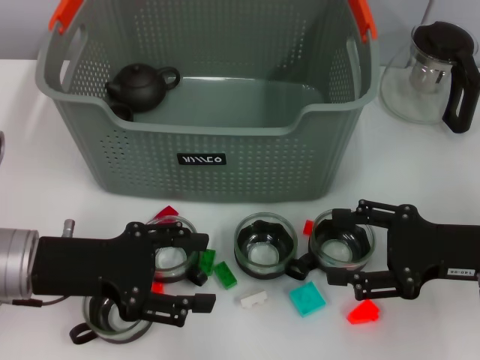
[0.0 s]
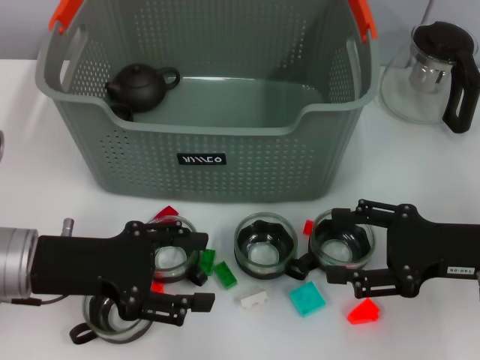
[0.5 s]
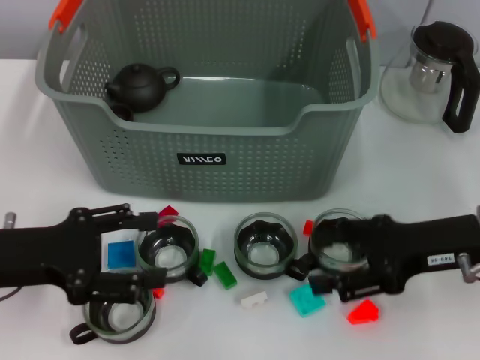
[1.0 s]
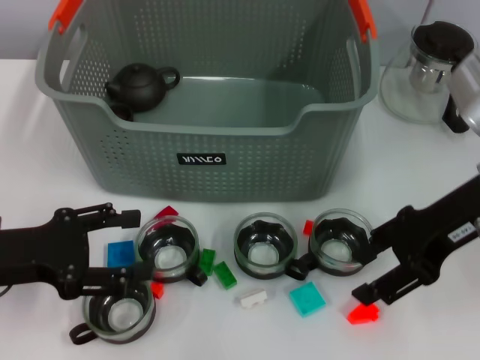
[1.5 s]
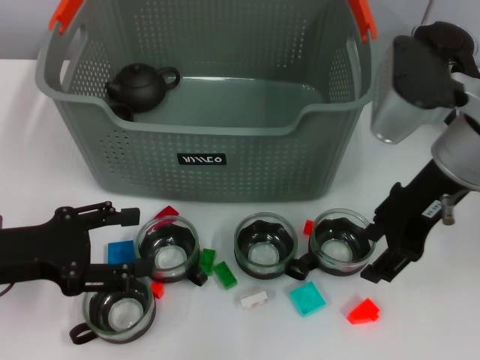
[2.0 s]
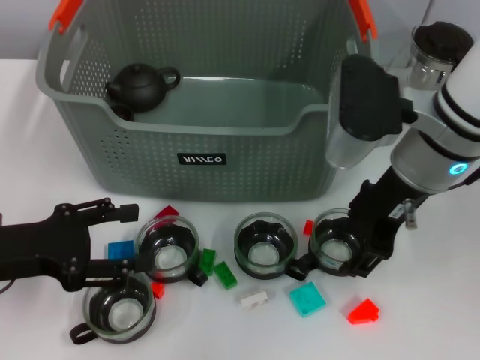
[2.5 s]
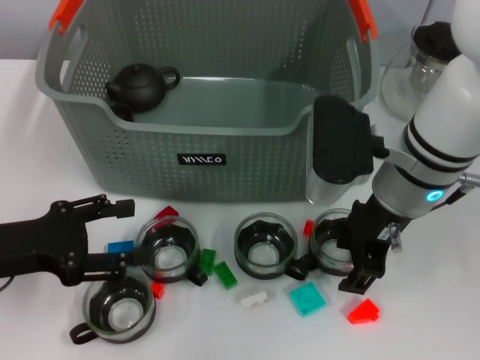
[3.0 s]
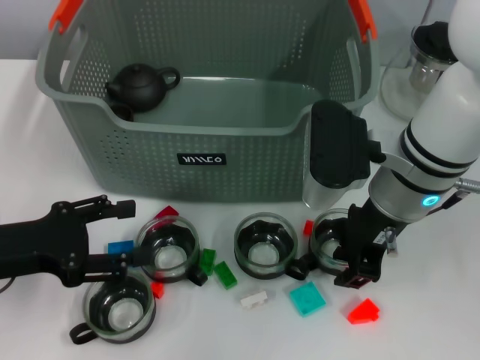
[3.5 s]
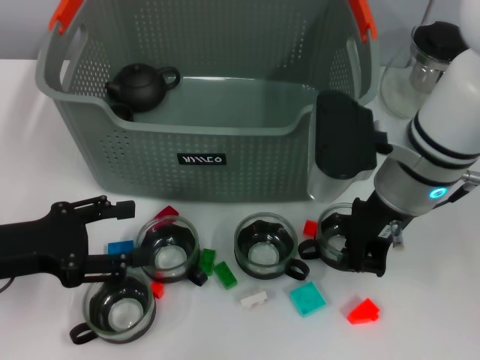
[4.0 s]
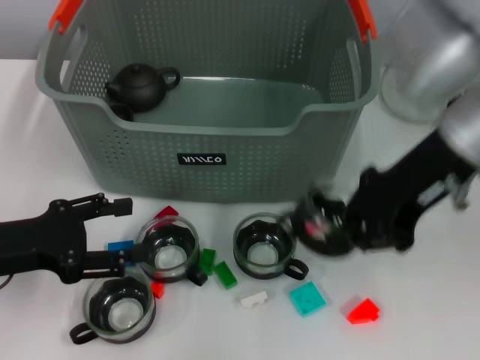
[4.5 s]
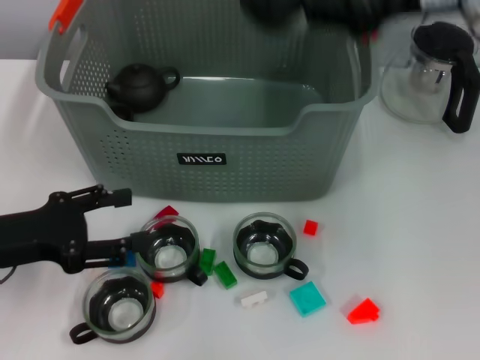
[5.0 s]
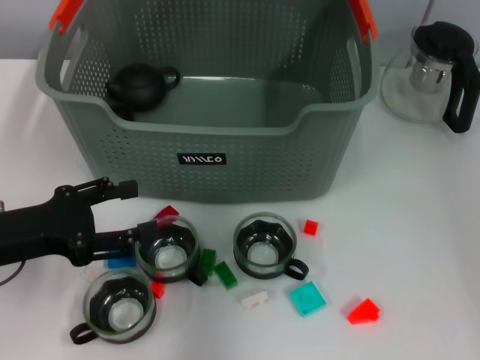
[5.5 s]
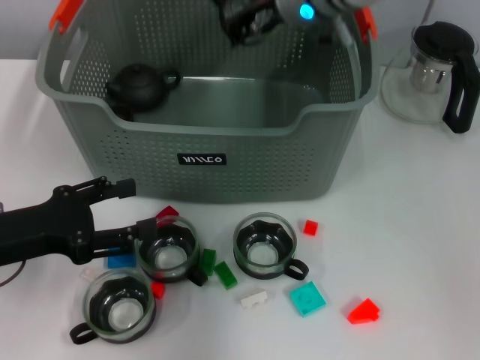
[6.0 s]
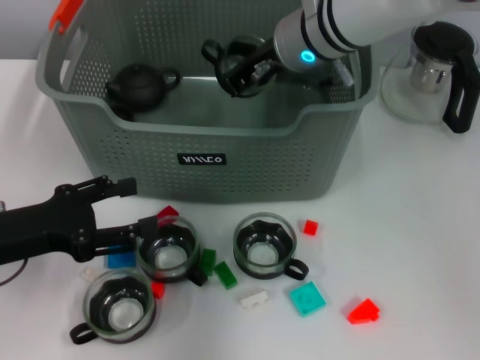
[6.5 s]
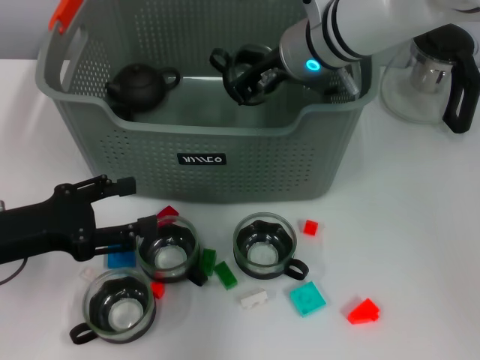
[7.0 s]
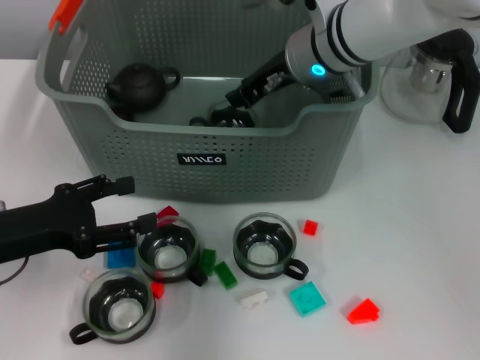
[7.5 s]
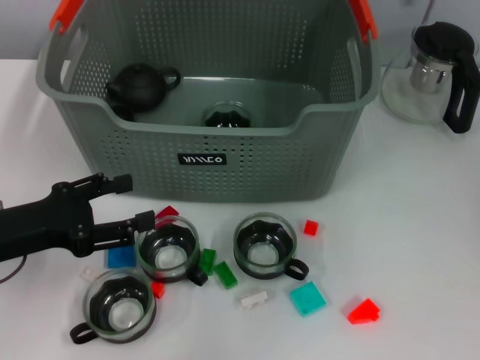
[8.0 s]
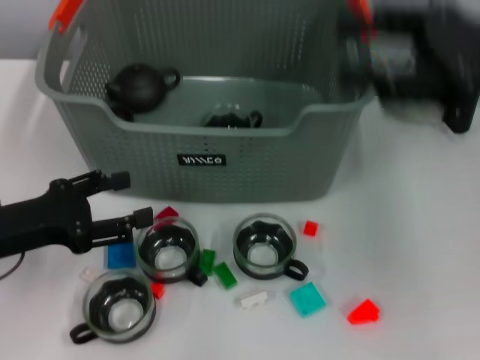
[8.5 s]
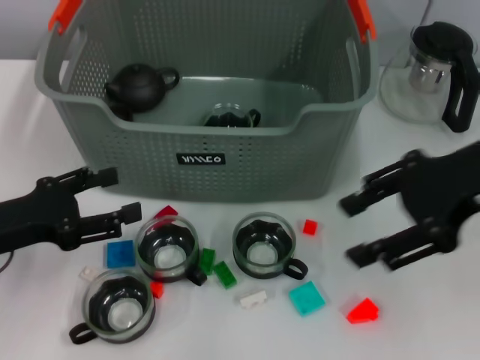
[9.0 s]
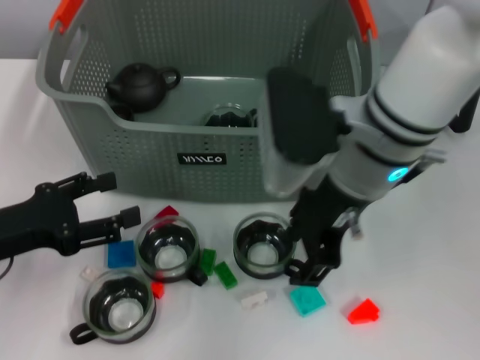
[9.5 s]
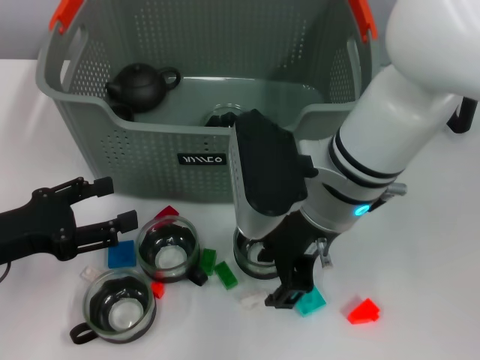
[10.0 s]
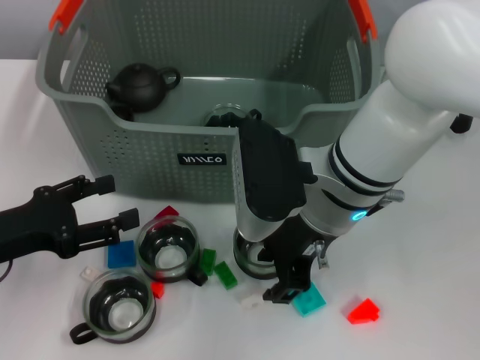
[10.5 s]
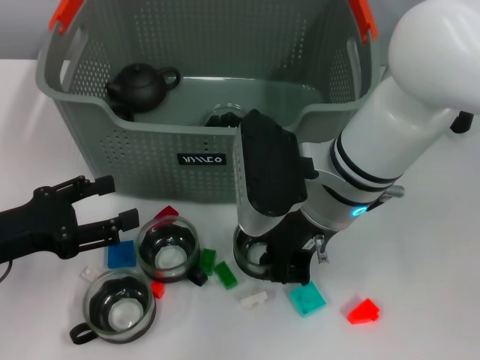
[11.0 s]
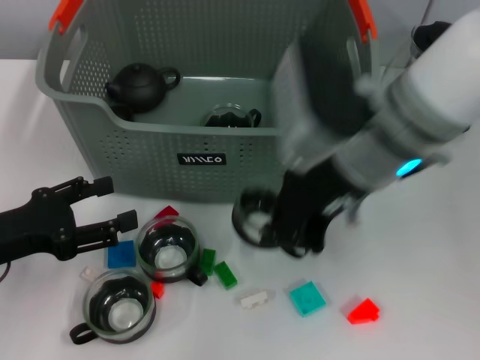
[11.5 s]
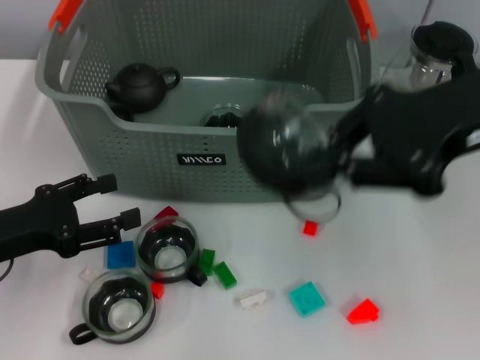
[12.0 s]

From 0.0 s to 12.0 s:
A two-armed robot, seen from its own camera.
Task of the whole recording: pick up the teacup on the table and place it into the storage bin, pick up the block on the table and place it into the storage bin.
Step, from 0.0 s to 3.5 s: Grasp the cup with right gripper.
Step, from 4.0 s to 7.0 s: Place the cup in the storage box with right gripper.
Step, from 7.5 s to 11.0 s: Grasp the cup with right gripper.
From 0.0 s to 2.0 s: The left gripper moves to the left, roughly 5 cm. The right gripper heads upward, to the left and forward, covering approximately 15 cm.
From 2.0 s to 4.0 s: The right gripper moves approximately 5 cm, and closes up.
From 4.0 s to 6.0 s: The right gripper goes about 15 cm forward, to the left and upward.
From 6.0 s to 8.0 s: The right gripper shifts approximately 10 cm to the right and upward, and opens its fingers.
From 8.0 s to 10.0 s: The right gripper is displaced downward and backward by approximately 15 cm, and travels to the right and back again, approximately 15 cm each way.
From 10.0 s to 12.0 s: The right gripper goes some 20 cm to the right and upward, and closes up.

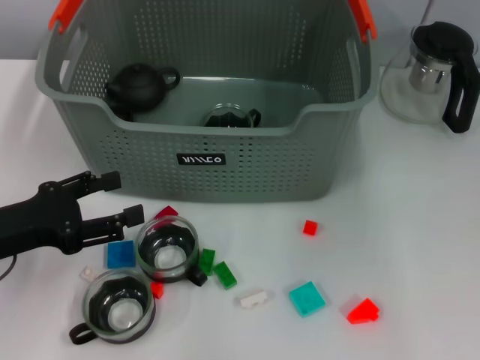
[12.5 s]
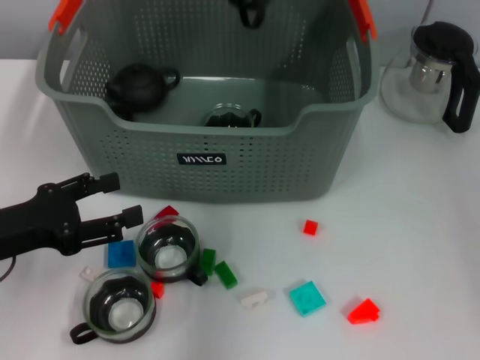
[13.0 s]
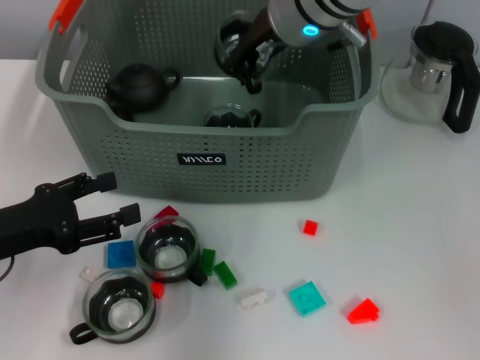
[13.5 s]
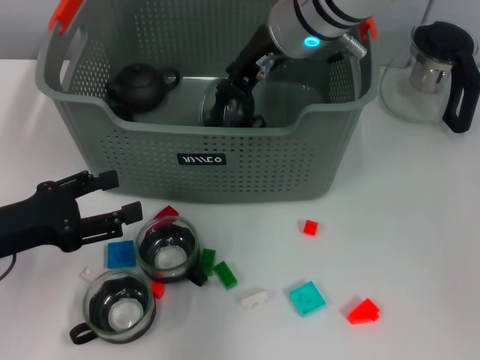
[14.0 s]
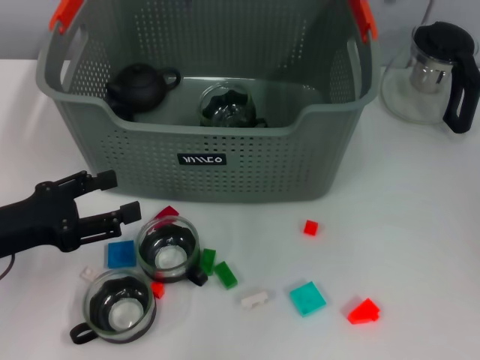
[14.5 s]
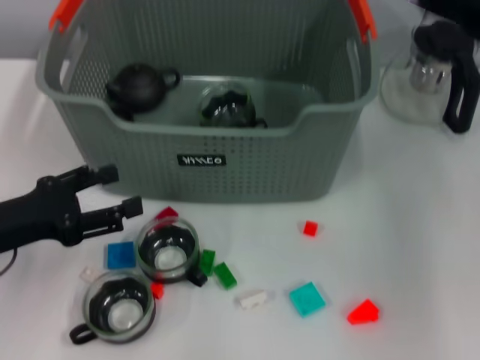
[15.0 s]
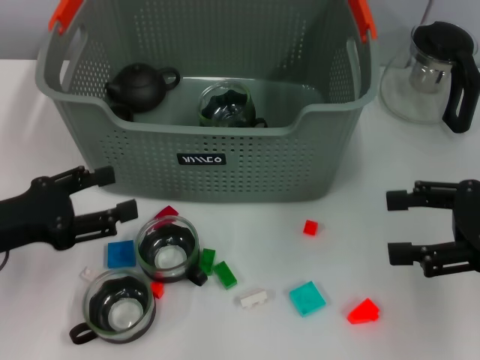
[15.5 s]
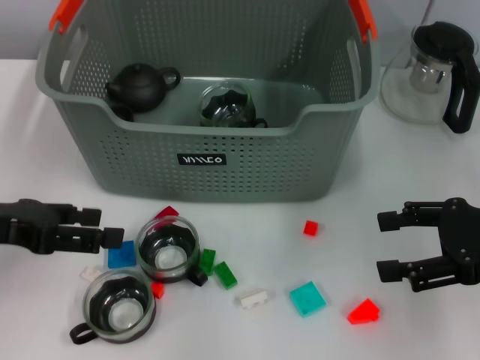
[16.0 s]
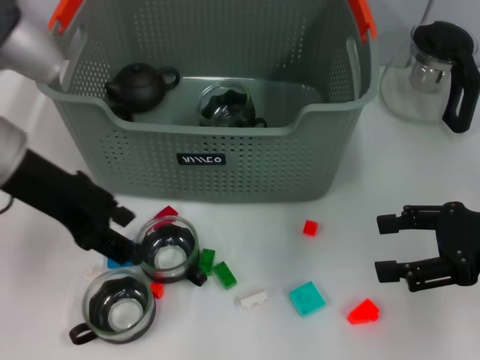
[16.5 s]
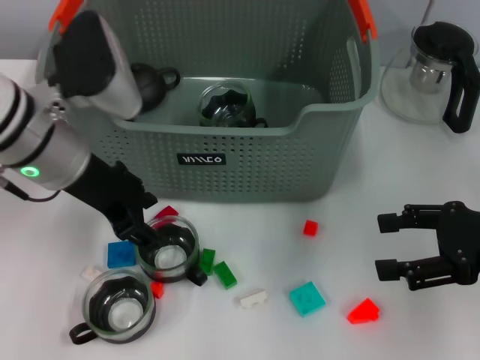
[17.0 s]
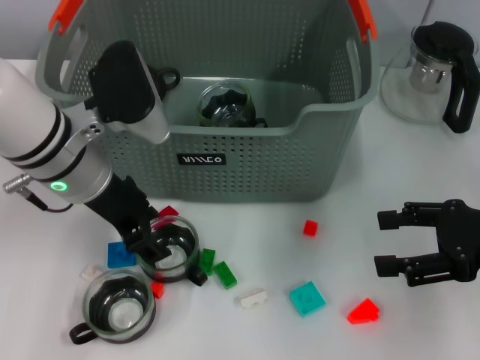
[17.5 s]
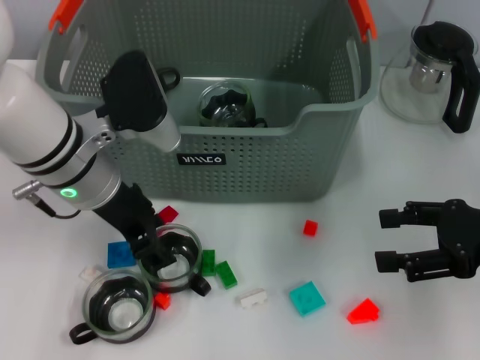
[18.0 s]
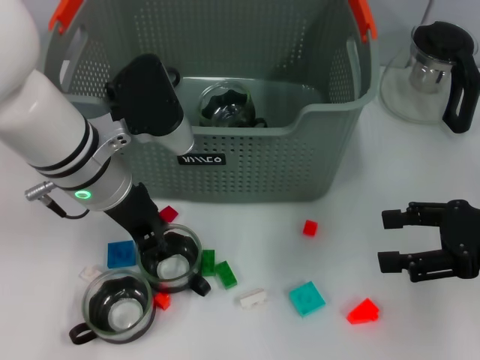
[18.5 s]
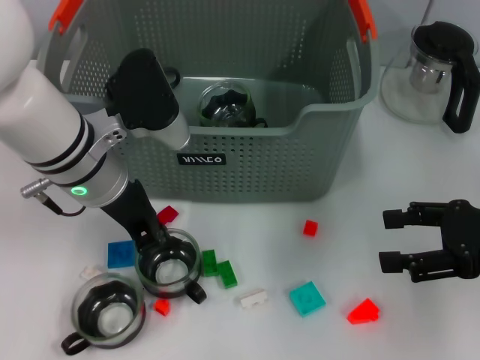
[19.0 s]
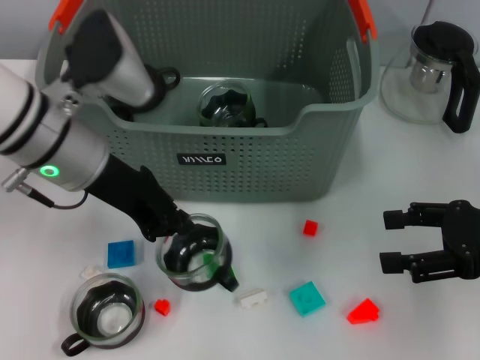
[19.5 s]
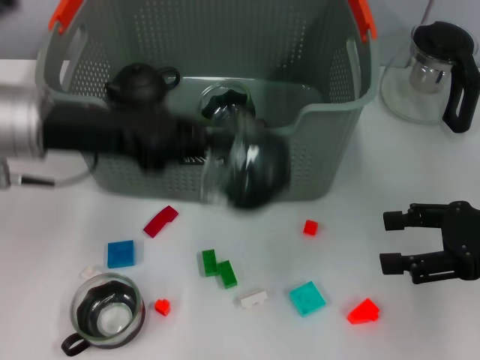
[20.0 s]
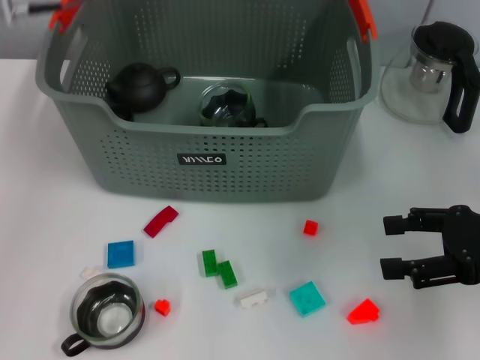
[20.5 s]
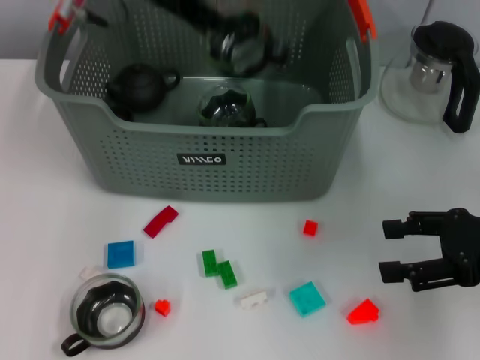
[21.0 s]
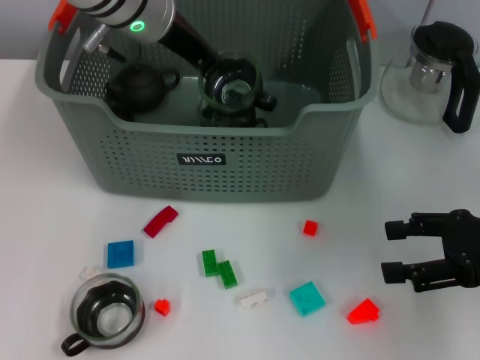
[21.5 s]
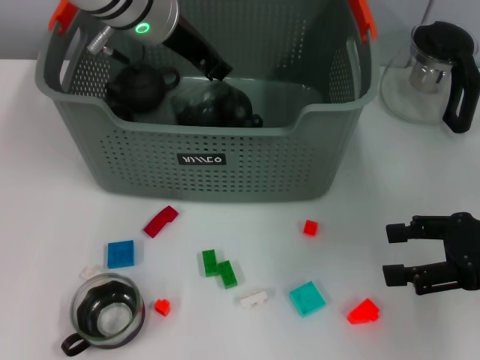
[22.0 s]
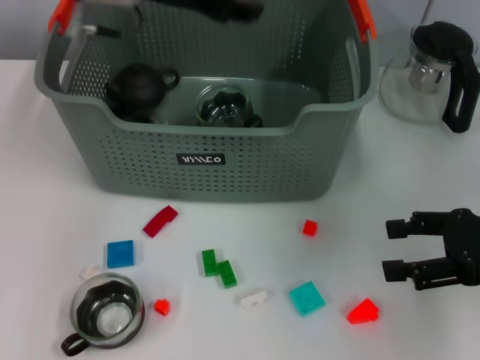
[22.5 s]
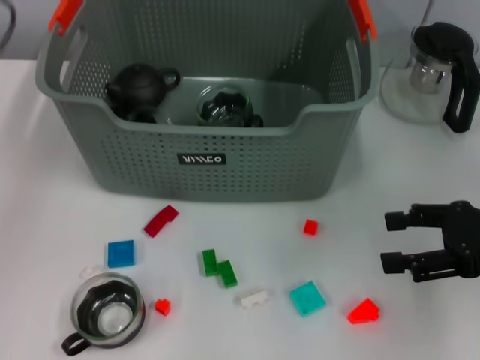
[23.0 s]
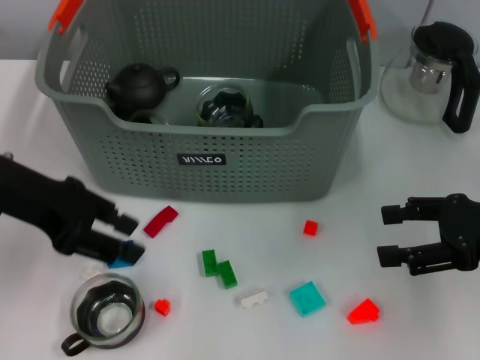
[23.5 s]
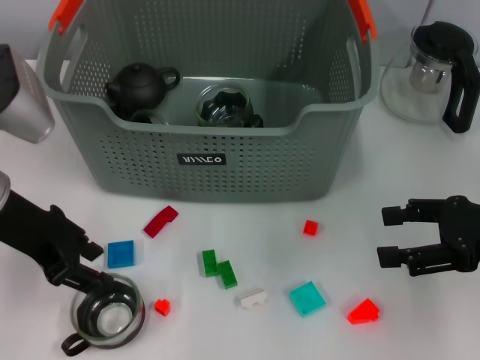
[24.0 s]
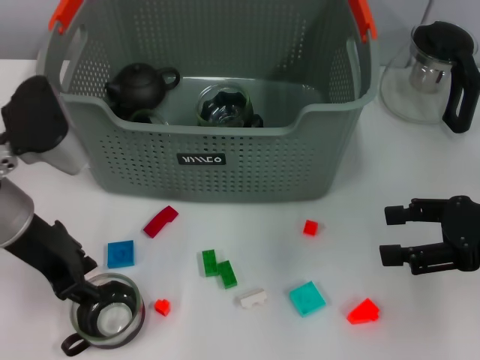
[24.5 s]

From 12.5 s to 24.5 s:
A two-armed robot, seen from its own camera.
Task of the whole recording: pick up the teacup on the table and place it into the storage bin, pick up the block on the table and place it into the storage bin.
Step, from 12.5 s to 14.0 s: Place the cup in the storage box with right gripper.
Step, from 14.5 s to 18.5 s: Grasp the cup with left gripper.
Step, from 19.0 s to 21.5 s: Place the cup in the storage box with left gripper.
From 12.5 s to 14.5 s: The right gripper is displaced to the left by about 15 cm, and opens its fingers.
From 14.5 s to 16.5 s: The left gripper is displaced upward, to the right and forward by roughly 15 cm. The right gripper travels to the right, downward and backward by about 30 cm.
From 16.5 s to 18.5 s: The left gripper heads to the right and downward, covering some 10 cm.
From 18.5 s to 20.5 s: The left gripper heads upward, to the left and forward, covering roughly 15 cm, and closes.
From 20.5 s to 22.5 s: The left gripper shifts approximately 5 cm to the right, and opens its fingers.
From 22.5 s to 24.5 s: The left gripper is displaced backward, downward and to the left by some 20 cm.

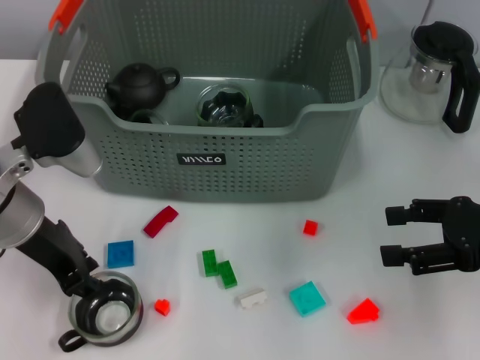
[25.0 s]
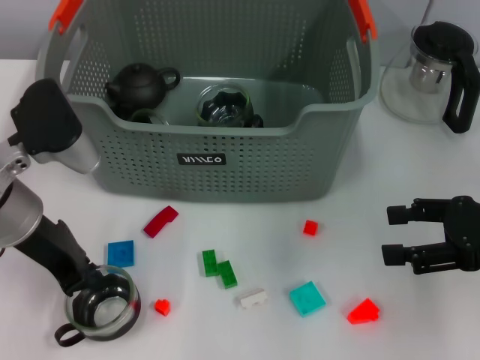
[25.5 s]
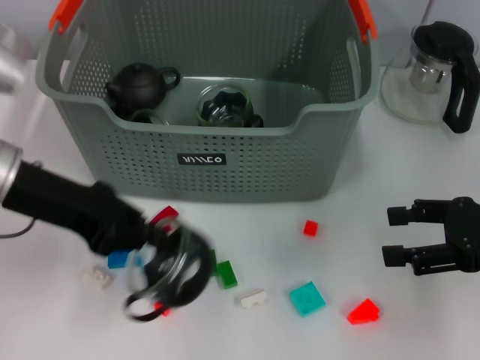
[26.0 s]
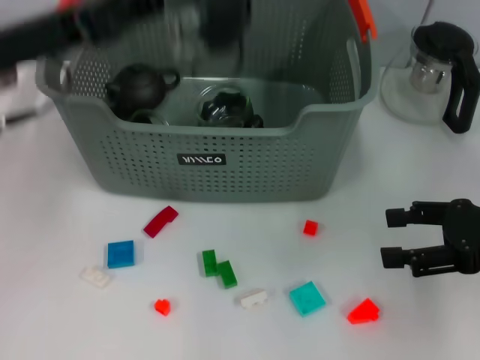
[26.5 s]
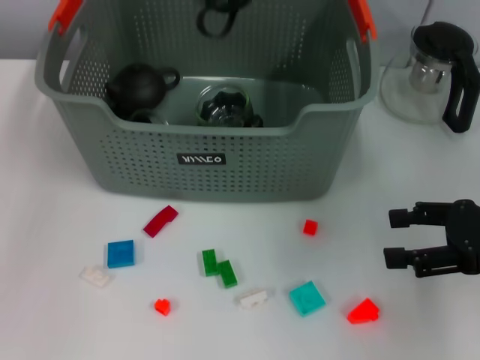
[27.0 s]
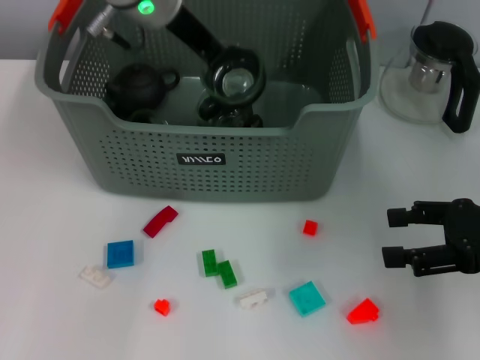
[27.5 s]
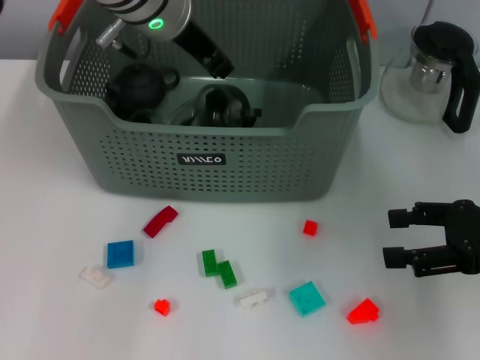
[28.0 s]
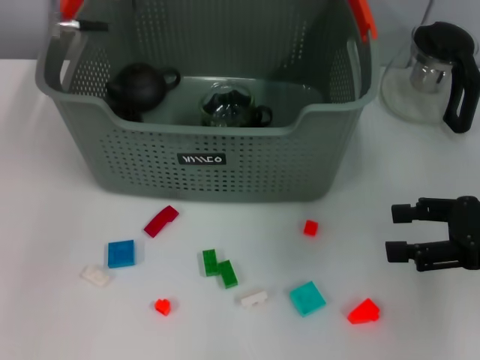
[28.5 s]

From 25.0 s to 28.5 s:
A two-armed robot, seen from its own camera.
Task of the whole recording: pick up the teacup on the table and place it into the storage bin, pick up the block on the table and place it into the storage bin.
Step, from 25.5 s to 27.5 s: Place the cup in the storage box with left gripper.
From 25.0 s to 27.0 s: The left gripper moves upward and forward, approximately 20 cm, and closes.
From 27.0 s to 28.5 s: The left gripper opens up.
